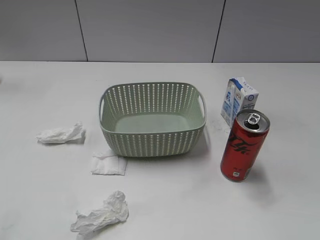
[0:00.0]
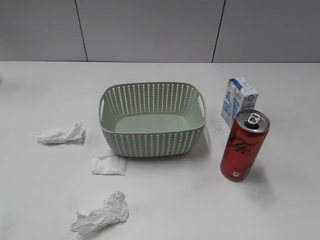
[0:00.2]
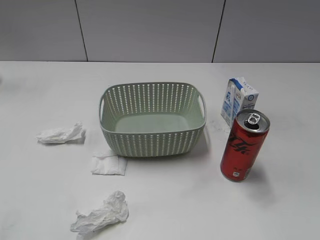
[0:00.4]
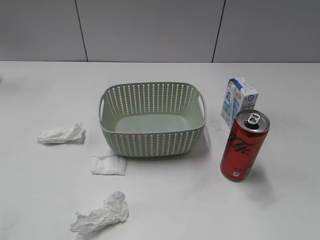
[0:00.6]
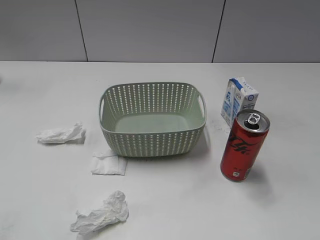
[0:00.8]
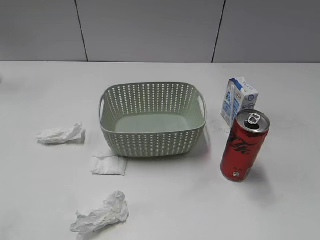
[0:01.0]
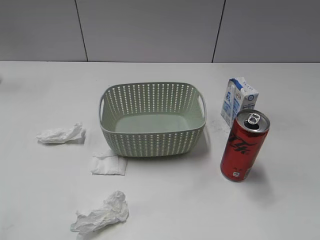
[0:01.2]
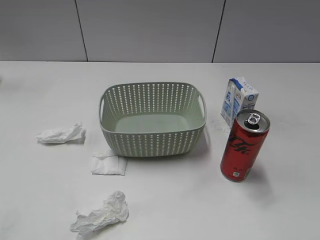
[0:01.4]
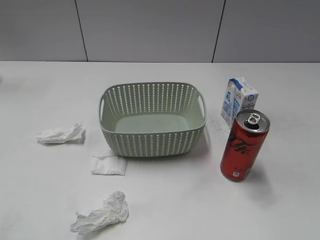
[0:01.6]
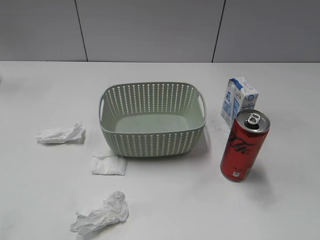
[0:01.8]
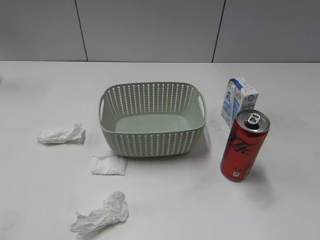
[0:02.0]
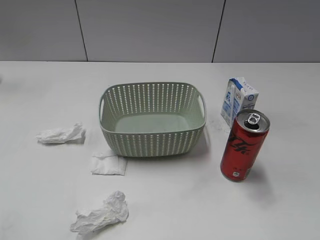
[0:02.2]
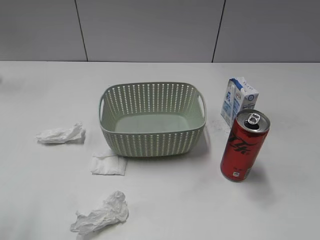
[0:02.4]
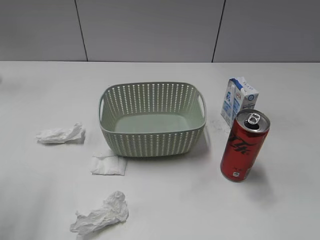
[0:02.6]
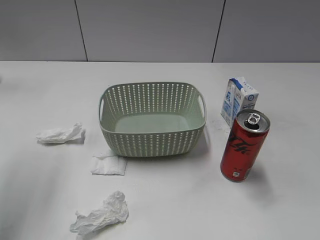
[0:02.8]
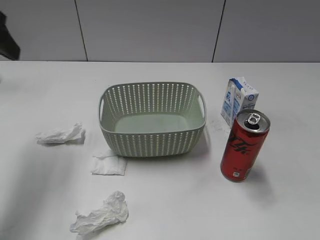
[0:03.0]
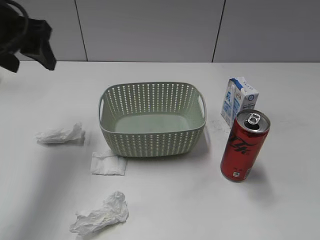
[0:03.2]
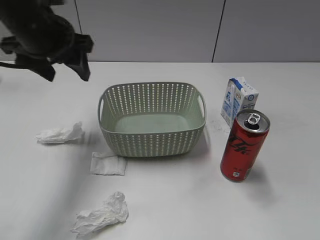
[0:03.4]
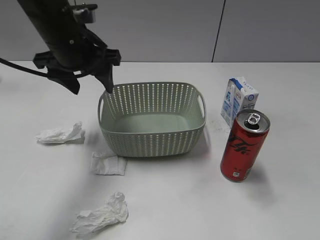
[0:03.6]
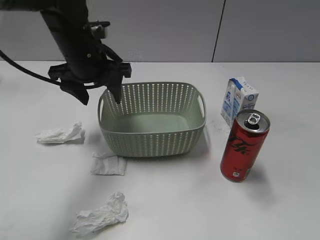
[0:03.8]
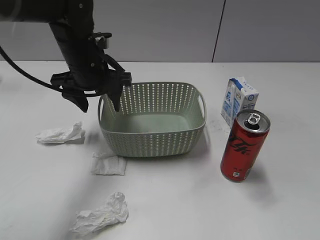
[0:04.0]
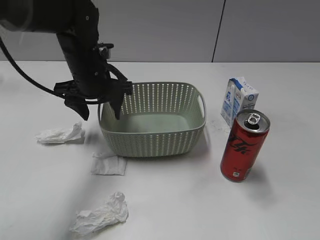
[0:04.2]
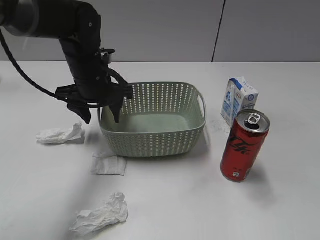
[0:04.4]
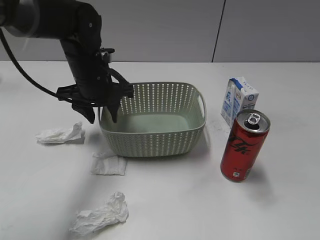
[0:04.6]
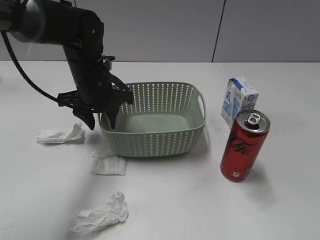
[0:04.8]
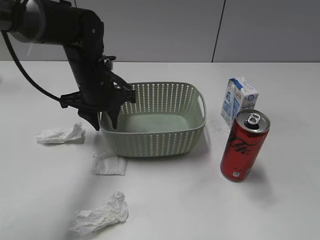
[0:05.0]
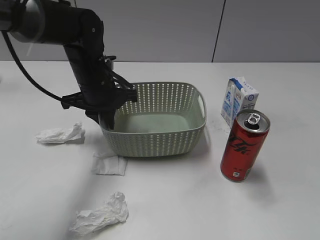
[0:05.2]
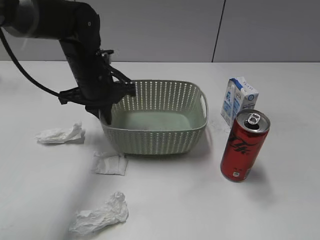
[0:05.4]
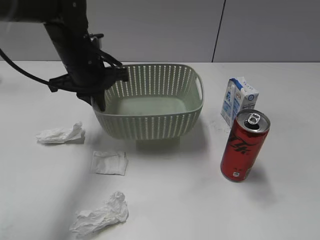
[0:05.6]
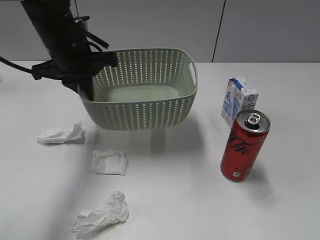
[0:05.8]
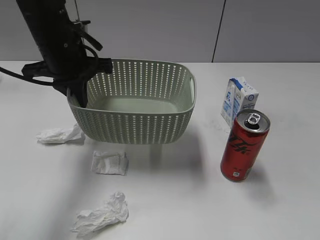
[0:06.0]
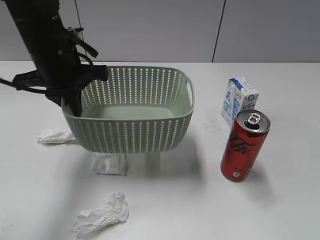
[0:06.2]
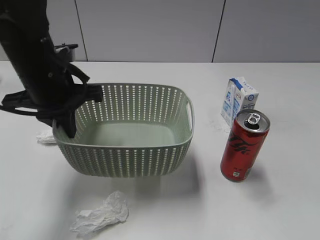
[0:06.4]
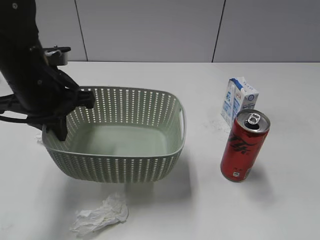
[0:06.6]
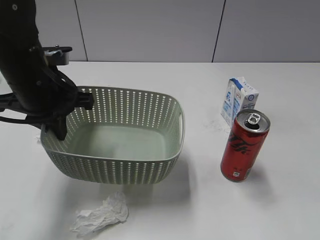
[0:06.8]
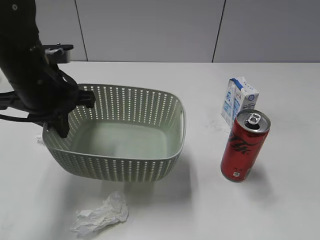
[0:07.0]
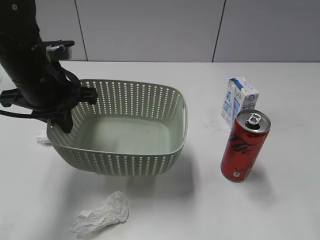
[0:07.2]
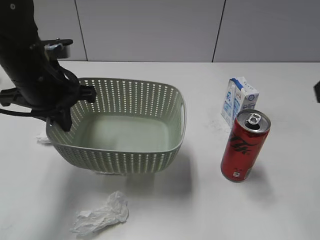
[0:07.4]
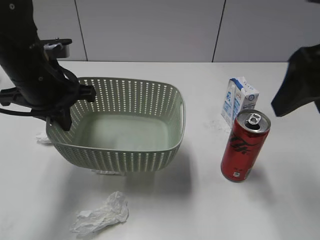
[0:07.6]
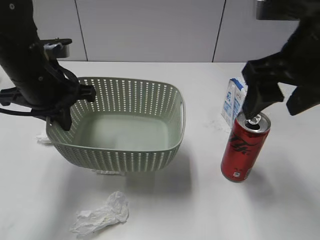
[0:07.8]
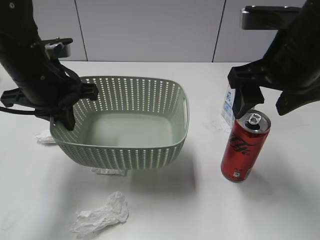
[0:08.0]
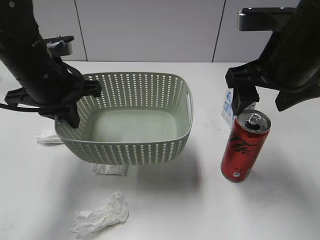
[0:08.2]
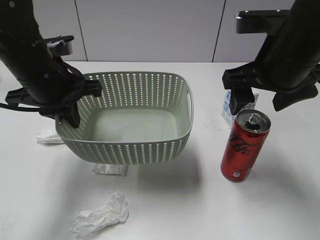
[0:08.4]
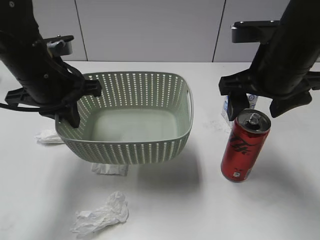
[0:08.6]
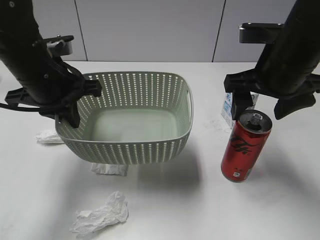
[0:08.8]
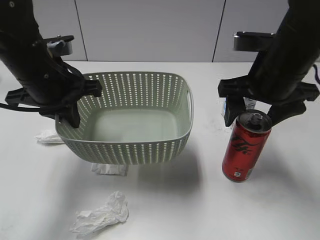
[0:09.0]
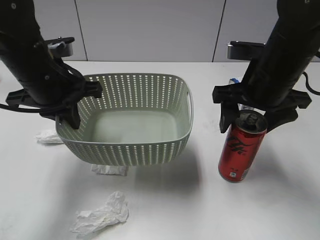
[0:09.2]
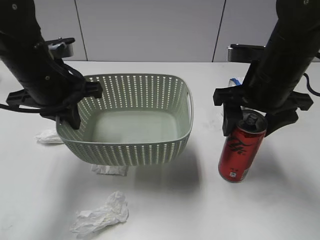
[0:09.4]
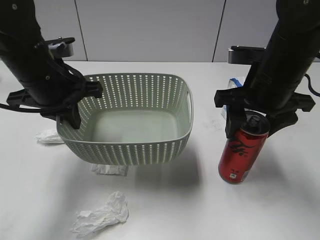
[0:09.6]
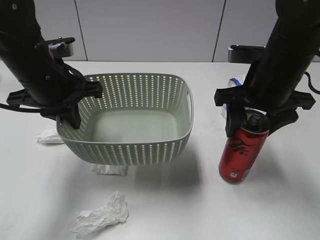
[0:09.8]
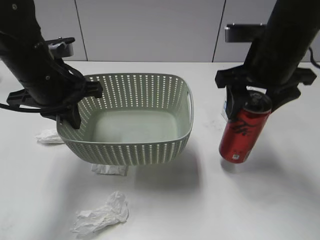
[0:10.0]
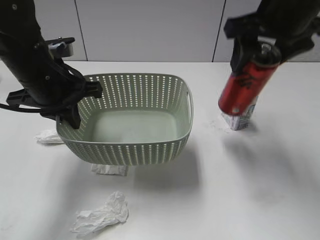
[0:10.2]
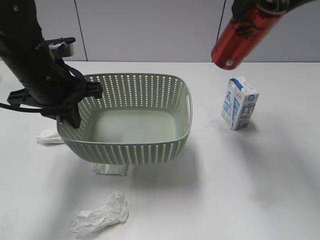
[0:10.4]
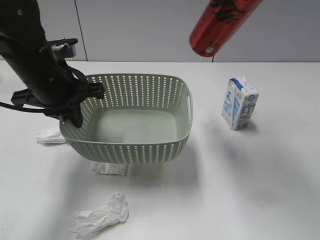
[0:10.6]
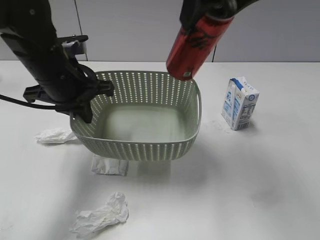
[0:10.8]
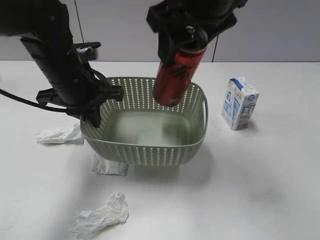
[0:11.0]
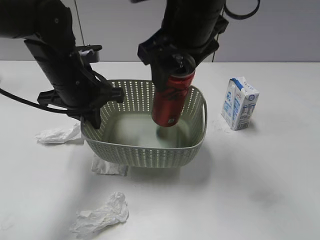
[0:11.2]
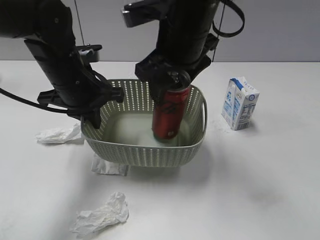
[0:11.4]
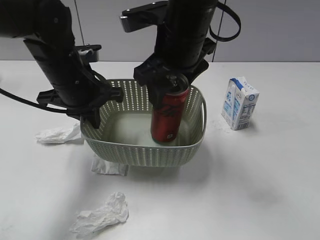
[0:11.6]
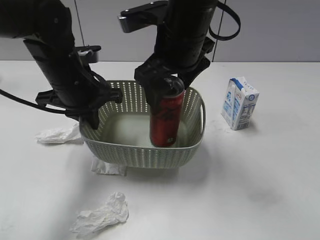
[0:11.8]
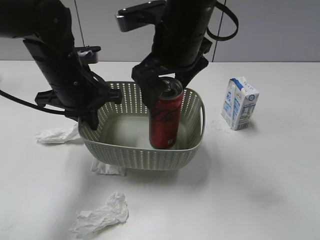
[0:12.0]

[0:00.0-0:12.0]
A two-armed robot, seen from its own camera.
Step, 0:03.0 to 0:05.2: Grasp the basket with left gripper.
Step, 0:05.4 to 0:07.0: Lift the basket with left gripper.
Step, 0:07.2 to 0:09.6: Grasp the cola can with right gripper.
0:01.6 to 0:03.0: The left gripper is displaced forward by some 30 cm.
0:03.0 to 0:04.4: The left gripper goes approximately 25 cm downward, to the right and forward.
0:04.4 to 0:06.0: The left gripper travels upward by roughly 5 cm, and closes.
0:06.0 to 0:07.6: The right gripper shifts about 25 cm forward and to the left. Meanwhile the left gripper goes some 5 cm backward.
0:07.6 to 0:09.0: The right gripper is displaced downward and forward by approximately 10 cm, and opens.
0:09.0 to 0:10.4: The right gripper is displaced upward by some 15 cm, and closes up.
0:10.4 to 0:12.0: The right gripper heads to the left and downward, covering approximately 20 cm, and opens.

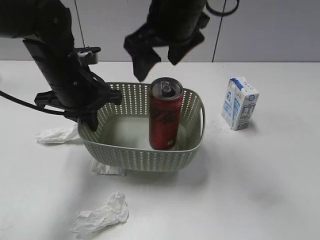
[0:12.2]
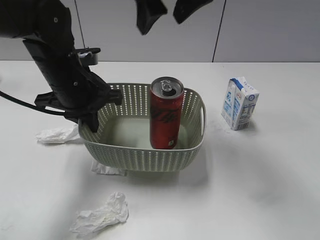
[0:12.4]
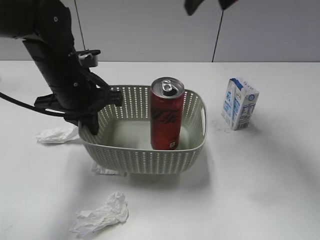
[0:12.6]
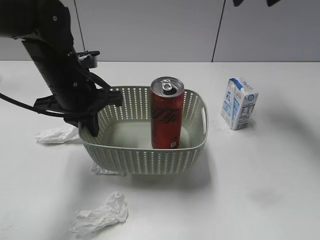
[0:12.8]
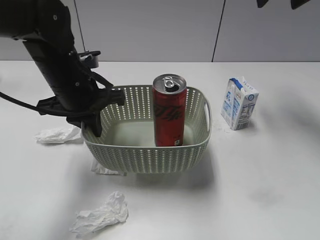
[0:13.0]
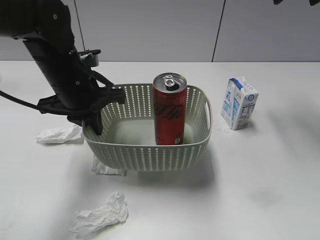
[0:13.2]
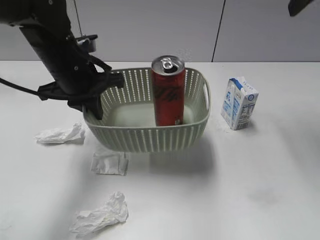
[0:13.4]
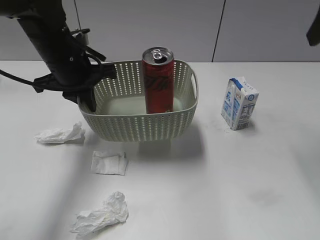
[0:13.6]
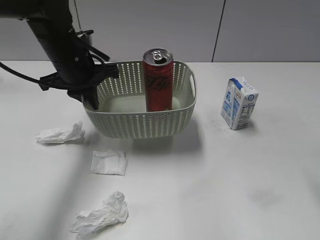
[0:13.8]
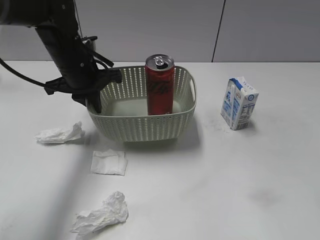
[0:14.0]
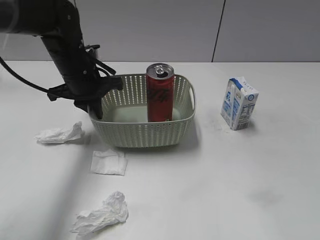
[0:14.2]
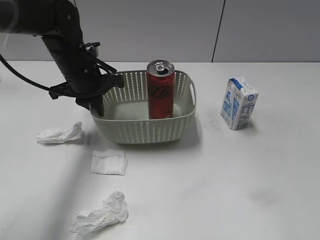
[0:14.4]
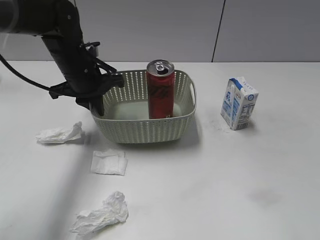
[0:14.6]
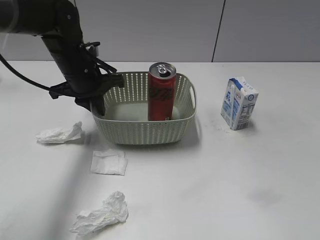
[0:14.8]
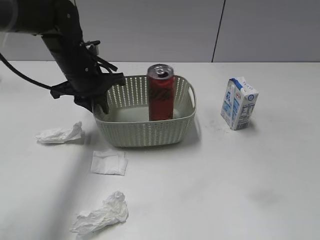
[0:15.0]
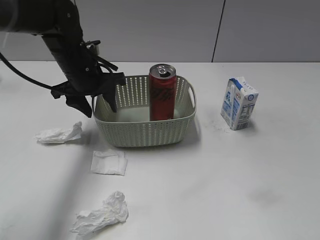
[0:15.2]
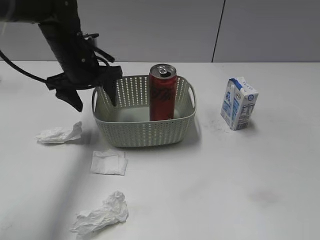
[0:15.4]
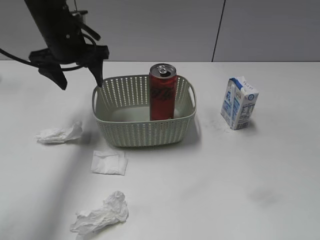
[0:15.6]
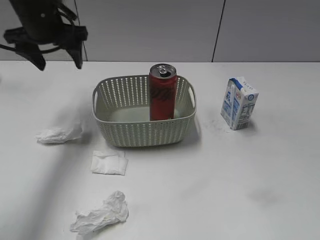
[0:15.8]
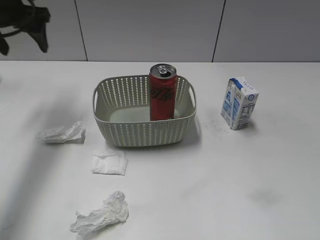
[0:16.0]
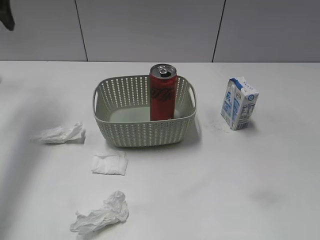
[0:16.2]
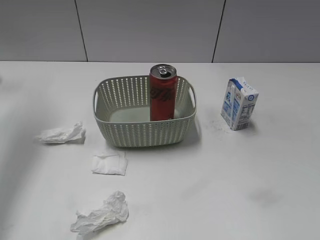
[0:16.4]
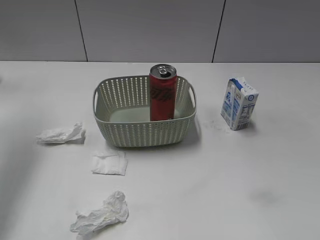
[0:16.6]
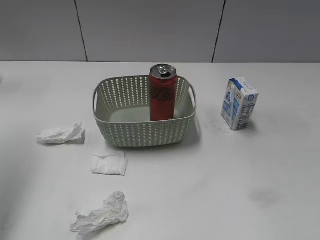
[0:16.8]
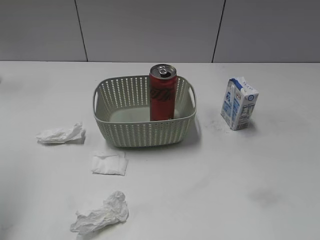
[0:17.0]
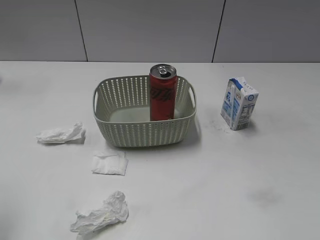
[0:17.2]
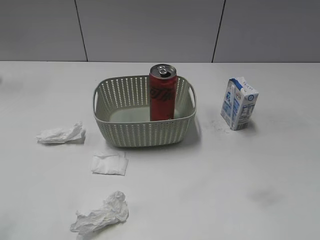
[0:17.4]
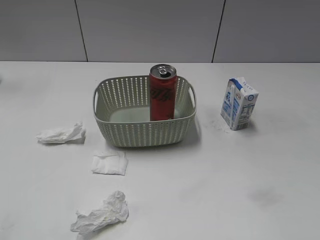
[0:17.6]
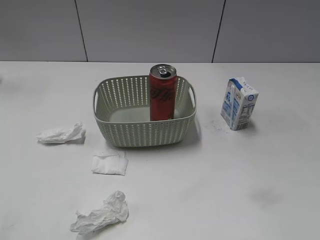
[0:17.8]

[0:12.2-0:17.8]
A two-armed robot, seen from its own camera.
Step, 0:12.4 to 0:15.2: Place the basket on the table with left gripper.
0:12.2 to 0:13.6: The right gripper moves to the right, roughly 25 cm, and closes its fingers.
0:13.6 to 0:15.0: The left gripper ends up approximately 5 cm from where it was. The right gripper moves backward and downward, some 30 cm.
0:15.0 to 0:16.4: The left gripper goes some 25 cm upward and to the left, and opens its fingers.
0:16.4 to 0:17.8: The left gripper heads backward, covering about 35 cm.
